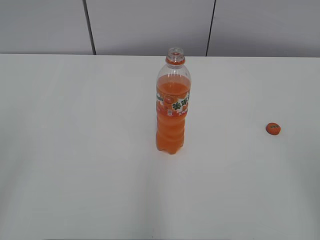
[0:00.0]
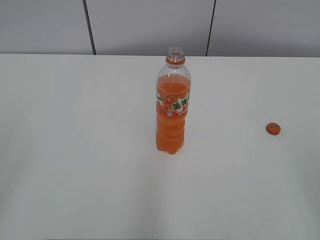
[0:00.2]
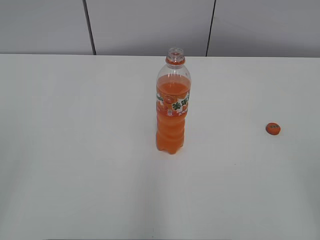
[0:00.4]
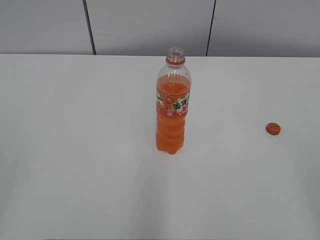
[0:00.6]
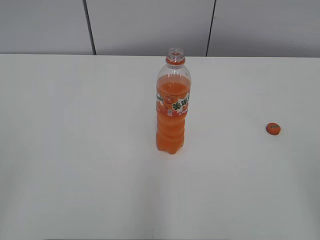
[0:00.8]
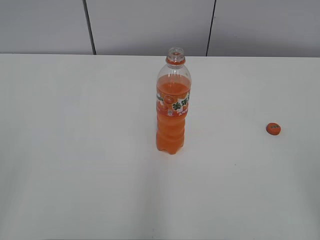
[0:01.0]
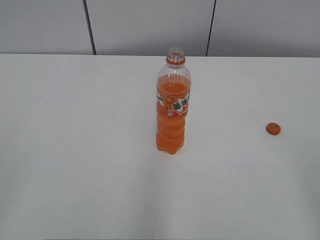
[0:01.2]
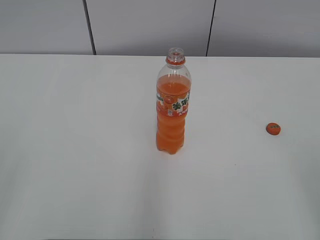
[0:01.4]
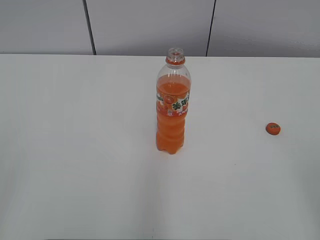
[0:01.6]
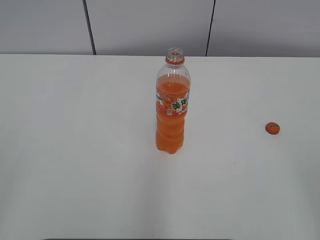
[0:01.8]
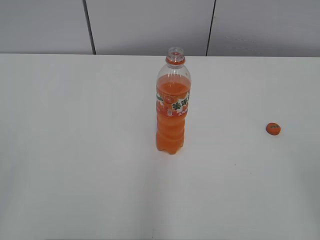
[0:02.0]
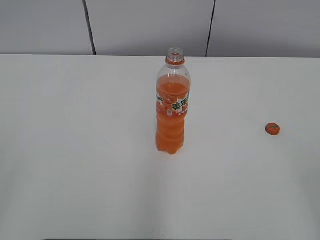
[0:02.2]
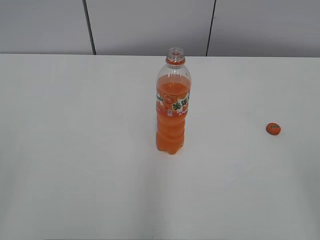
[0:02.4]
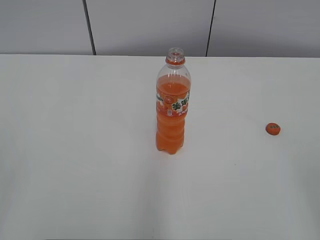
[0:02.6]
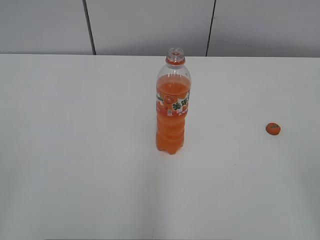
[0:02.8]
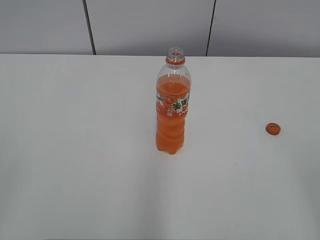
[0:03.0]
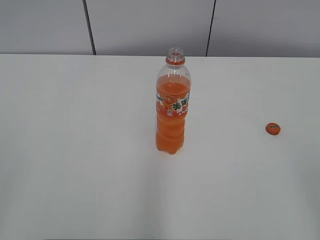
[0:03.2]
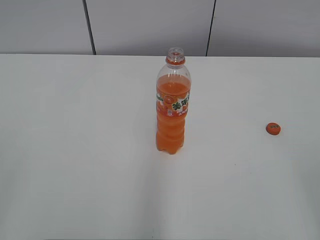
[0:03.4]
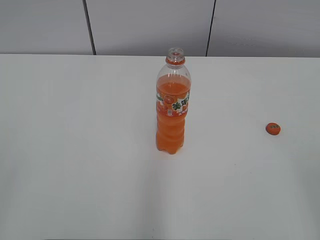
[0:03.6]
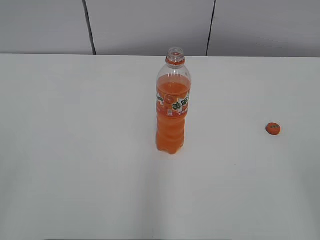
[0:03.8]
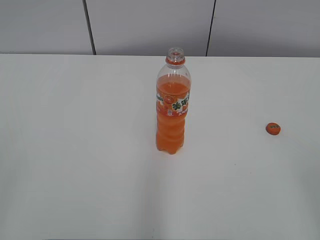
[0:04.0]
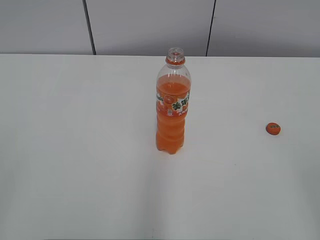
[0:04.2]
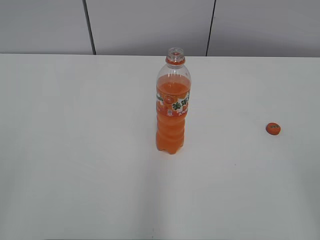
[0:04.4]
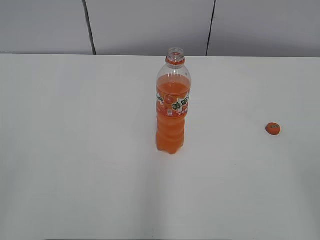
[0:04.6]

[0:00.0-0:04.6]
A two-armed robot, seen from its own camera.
0:03.0 to 0:04.6: The two grippers keep their place.

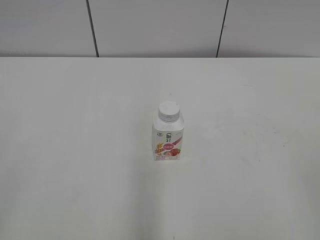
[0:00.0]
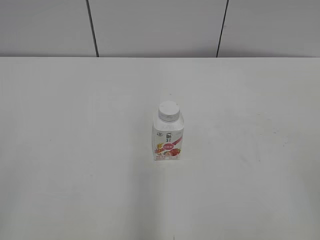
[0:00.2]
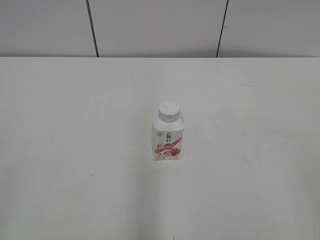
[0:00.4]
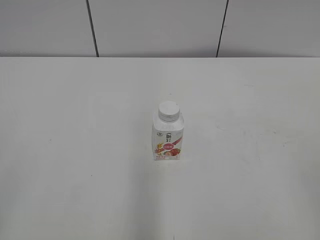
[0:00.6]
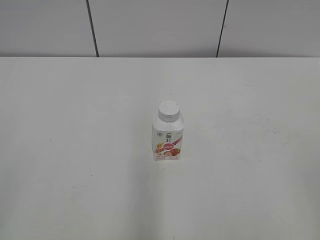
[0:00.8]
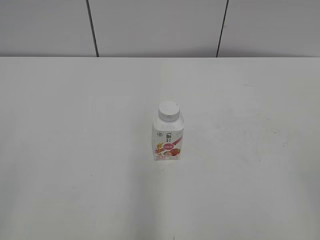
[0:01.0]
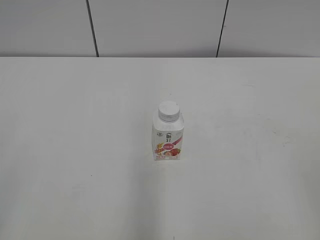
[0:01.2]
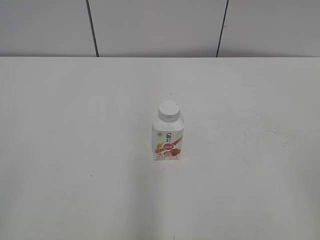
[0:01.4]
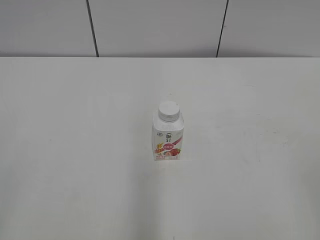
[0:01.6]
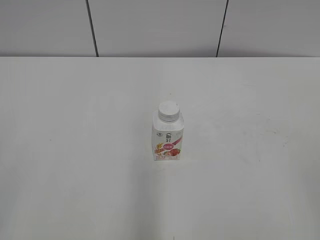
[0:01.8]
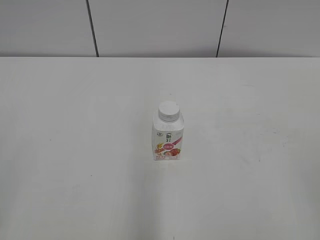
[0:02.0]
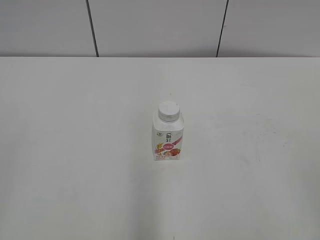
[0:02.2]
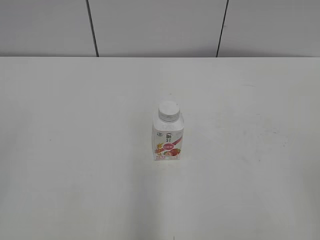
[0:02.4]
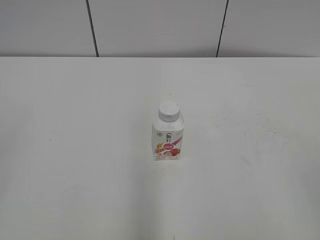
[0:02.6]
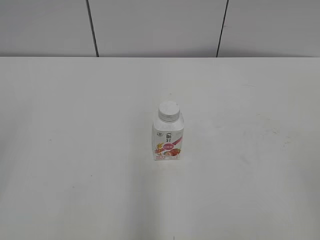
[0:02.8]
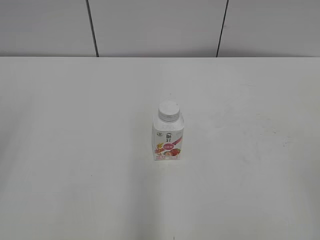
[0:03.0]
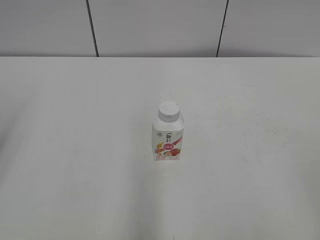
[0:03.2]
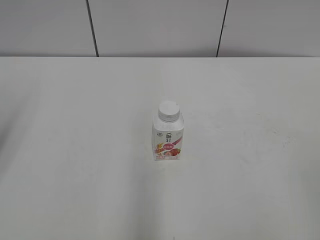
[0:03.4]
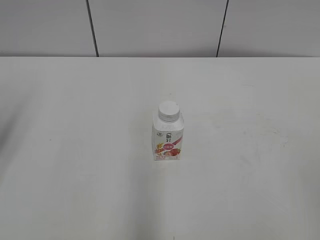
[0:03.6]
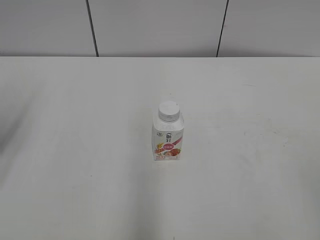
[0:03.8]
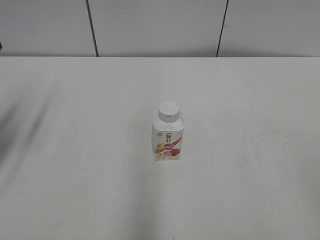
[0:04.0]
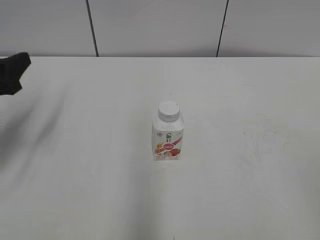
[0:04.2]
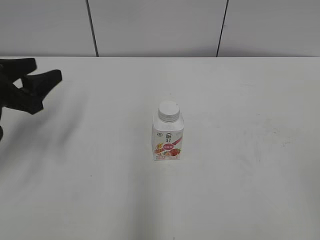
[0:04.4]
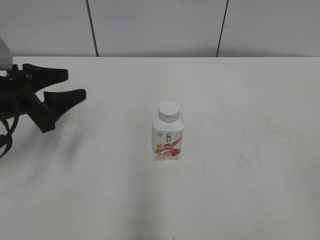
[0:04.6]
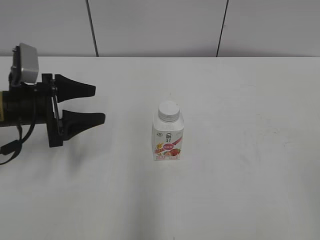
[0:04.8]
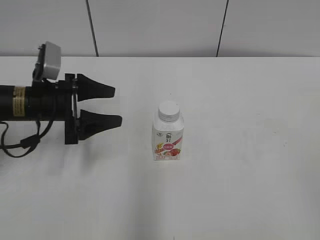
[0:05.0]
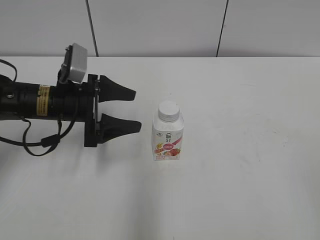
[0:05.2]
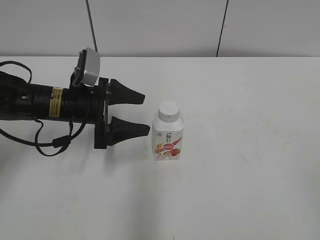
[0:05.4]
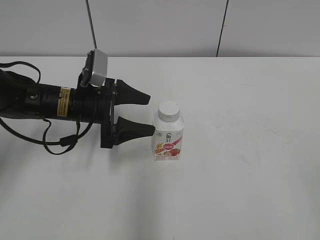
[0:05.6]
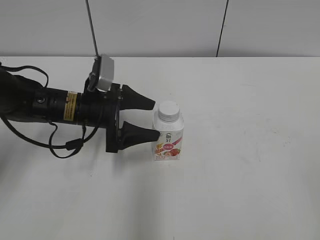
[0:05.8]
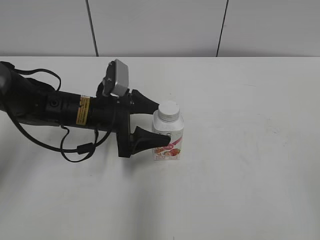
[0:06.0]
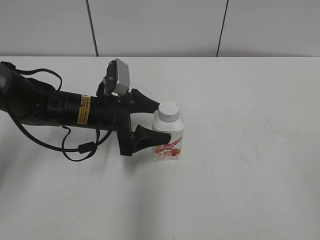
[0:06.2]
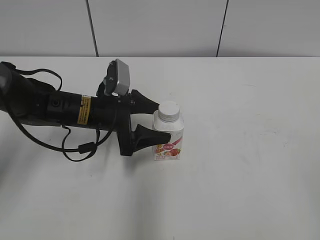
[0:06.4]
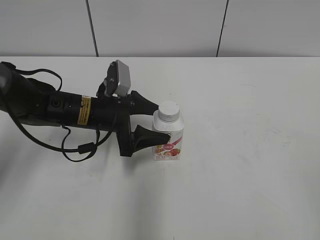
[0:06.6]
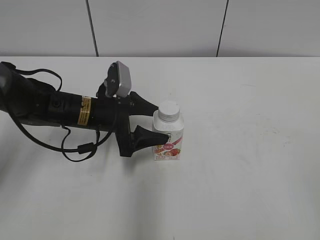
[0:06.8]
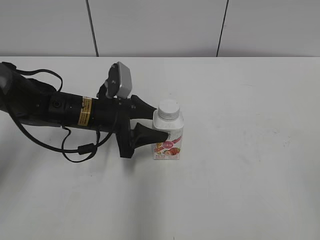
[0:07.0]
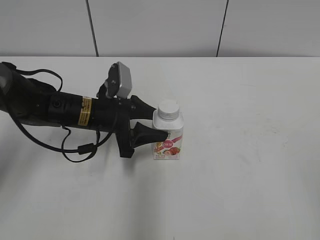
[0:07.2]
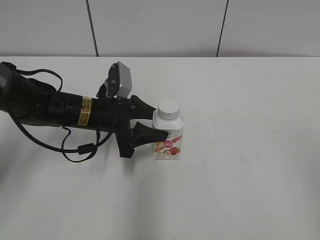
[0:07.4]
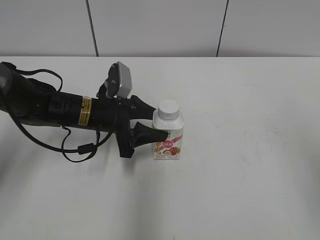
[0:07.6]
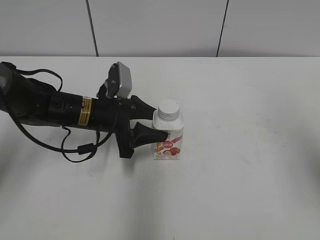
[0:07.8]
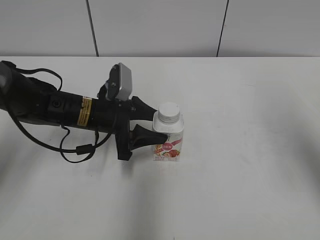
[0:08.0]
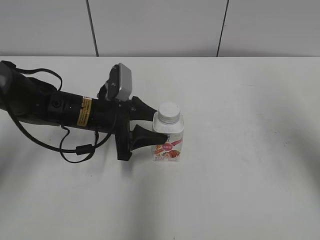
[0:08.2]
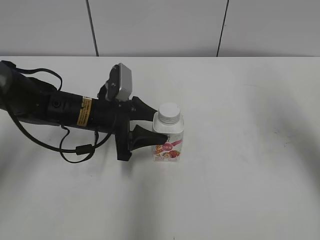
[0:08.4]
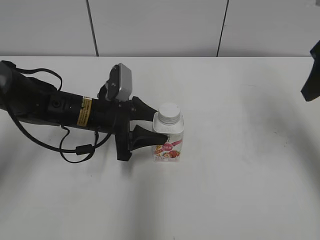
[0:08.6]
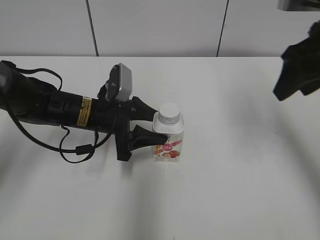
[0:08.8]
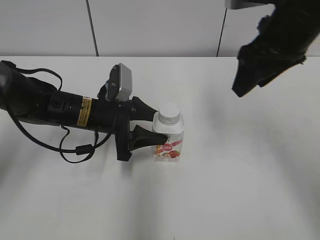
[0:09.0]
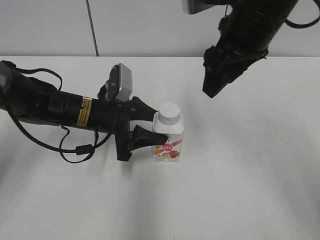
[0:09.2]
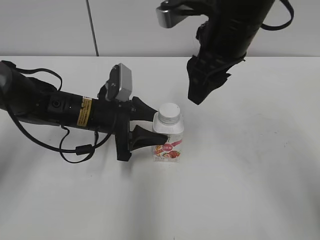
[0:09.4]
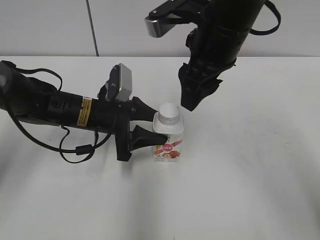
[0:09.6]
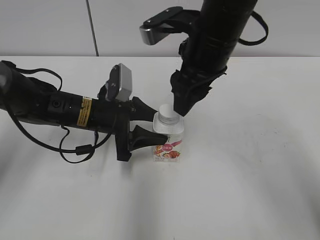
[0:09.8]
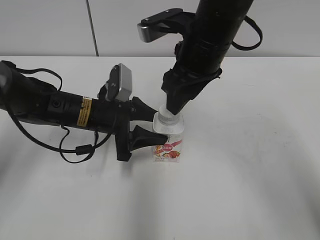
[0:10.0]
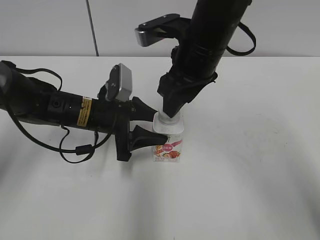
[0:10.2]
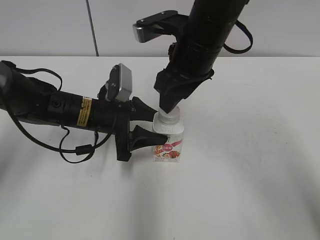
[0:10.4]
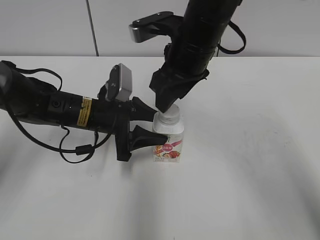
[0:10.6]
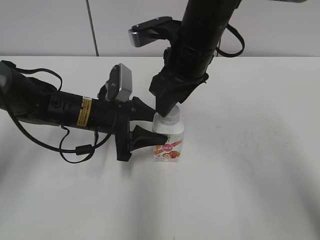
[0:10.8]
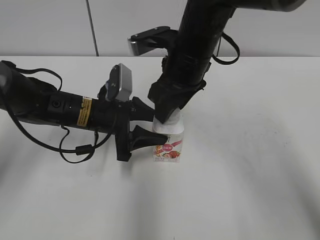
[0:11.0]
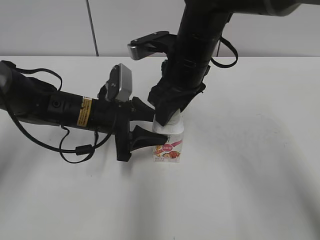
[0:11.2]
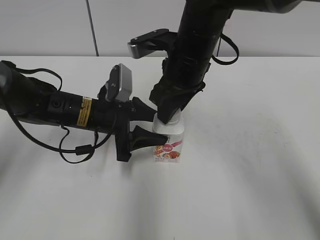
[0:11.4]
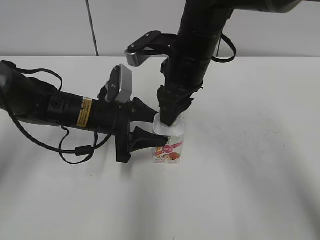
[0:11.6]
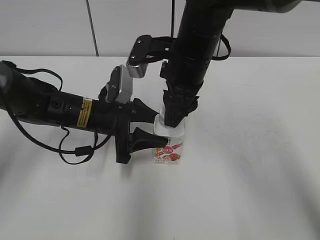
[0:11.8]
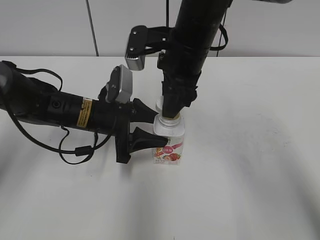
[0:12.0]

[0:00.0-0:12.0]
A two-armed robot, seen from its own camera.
Step, 0:00.0 to 0:07.0: Grab the Yili Changqing with the left hand.
Step, 0:07.2 to 0:11.8: Twist the bottle cap with the right hand.
0:03.0 to 0:04.4: The left gripper is displaced forward and downward by about 20 cm.
0:04.4 to 0:06.0: The left gripper shifts roughly 15 cm to the right and downward, and opens.
0:06.0 to 0:07.6: The left gripper closes its fingers. The right gripper moves forward, approximately 10 cm.
0:07.6 to 0:09.0: The right gripper is displaced forward and to the left by approximately 25 cm.
0:09.0 to 0:10.4: The right gripper is displaced to the left and downward by some 10 cm.
0:10.4 to 0:12.0: The right gripper closes its fingers.

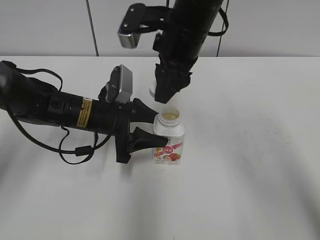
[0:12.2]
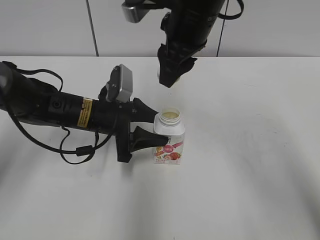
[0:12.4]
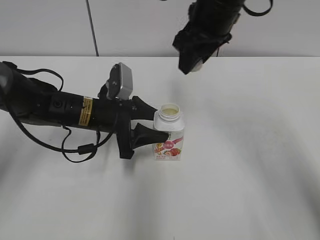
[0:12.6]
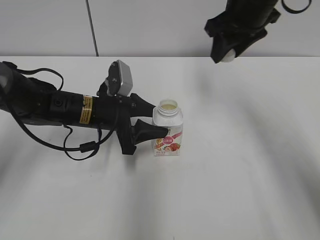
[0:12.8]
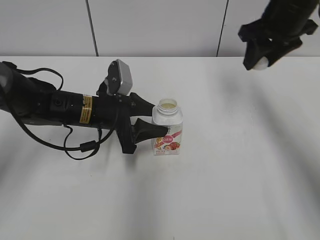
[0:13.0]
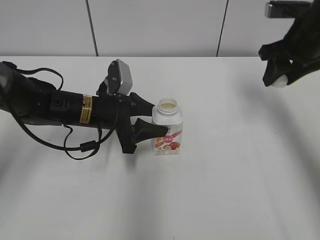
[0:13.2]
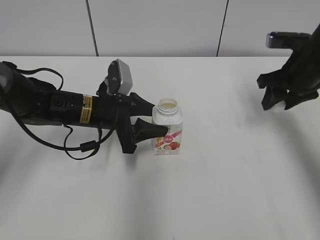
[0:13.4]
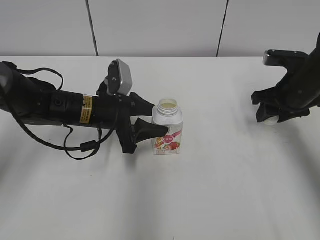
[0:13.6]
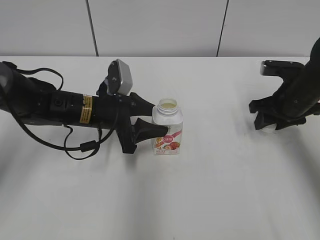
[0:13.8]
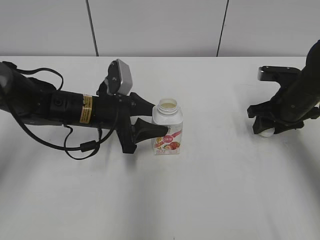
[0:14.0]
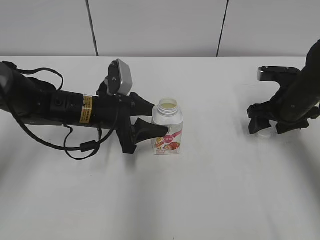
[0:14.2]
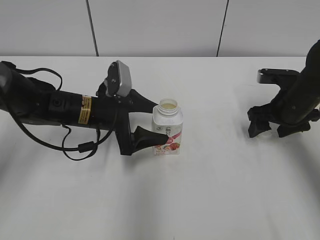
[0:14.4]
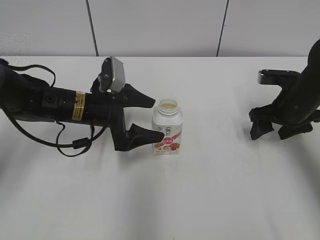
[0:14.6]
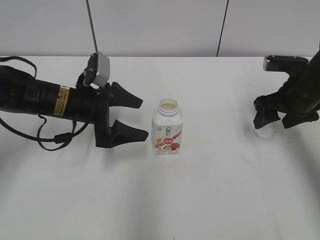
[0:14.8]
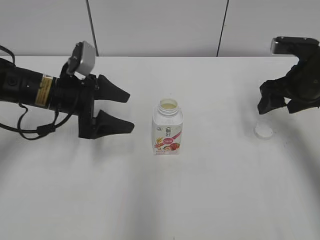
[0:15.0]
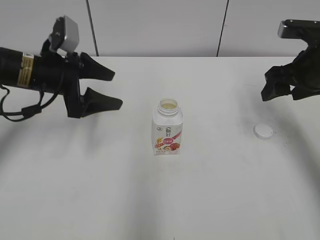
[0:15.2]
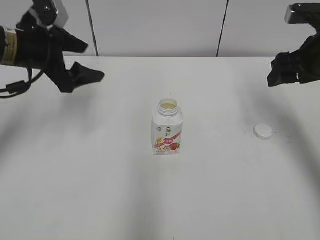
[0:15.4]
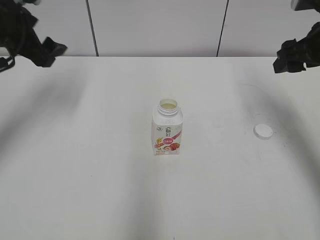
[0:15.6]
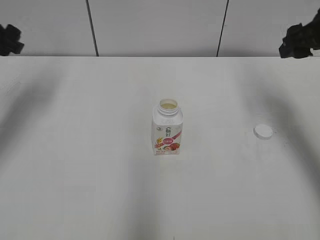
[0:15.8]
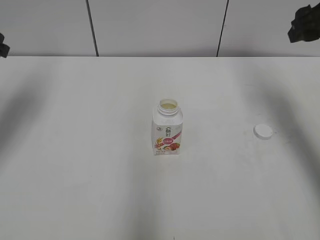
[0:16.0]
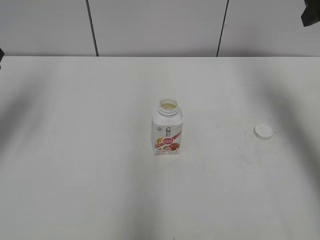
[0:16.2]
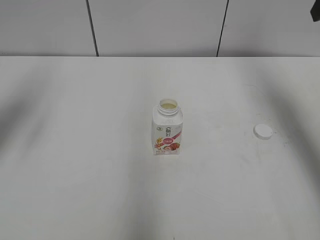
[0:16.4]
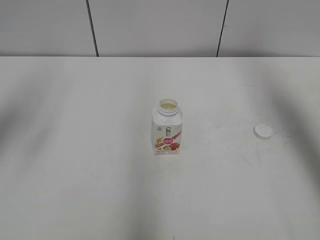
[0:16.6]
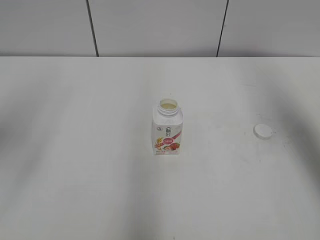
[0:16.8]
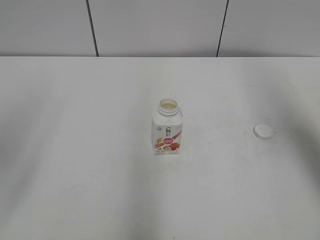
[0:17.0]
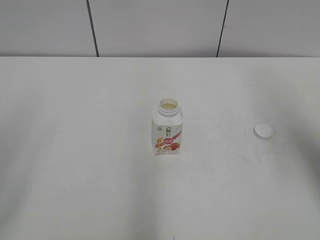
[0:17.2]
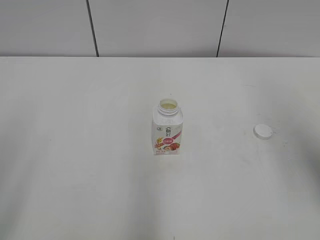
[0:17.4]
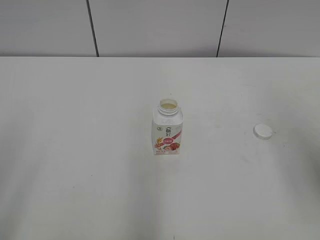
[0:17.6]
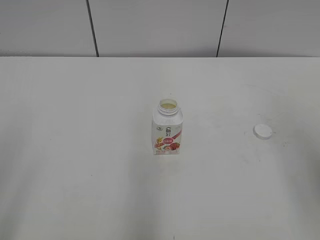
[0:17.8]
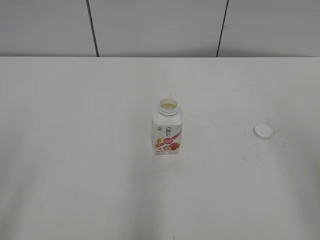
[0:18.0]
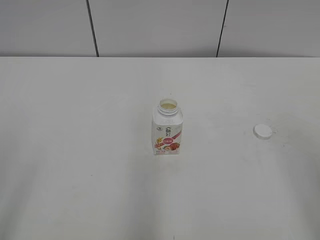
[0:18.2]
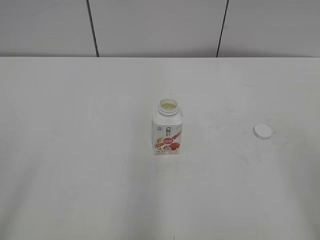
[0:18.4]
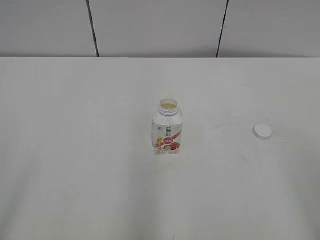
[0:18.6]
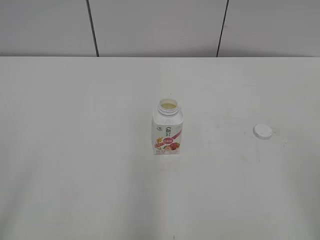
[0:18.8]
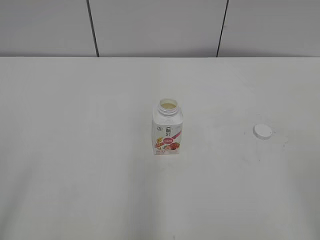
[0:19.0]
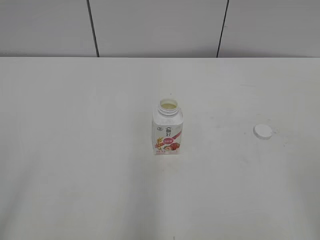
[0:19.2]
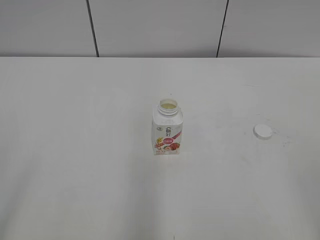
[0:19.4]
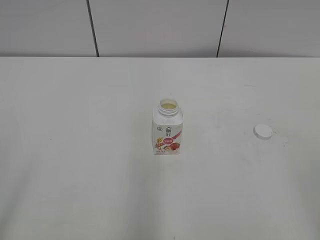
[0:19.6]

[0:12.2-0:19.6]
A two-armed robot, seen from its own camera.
Step, 0:12.2 to 0:14.0: Place the bottle cap on the right.
0:12.2 to 0:13.6: The right gripper goes about 25 cm to the right and downward.
0:13.6 to 0:15.2: The left gripper moves to the left and upward, approximately 10 cm, and opens up, while the right gripper is displaced upward by about 5 cm, and opens up.
0:15.2 to 0:16.6: The left gripper heads upward, backward and to the left, covering some 20 cm, while the right gripper travels upward by roughly 15 cm.
0:16.6 to 0:18.2: The two grippers go approximately 25 cm backward.
